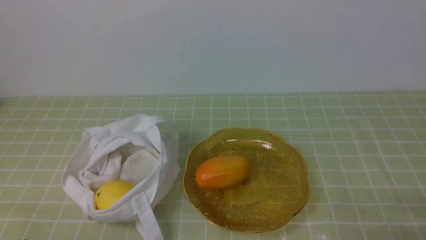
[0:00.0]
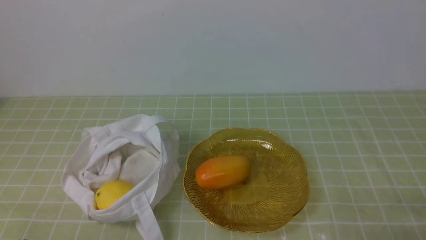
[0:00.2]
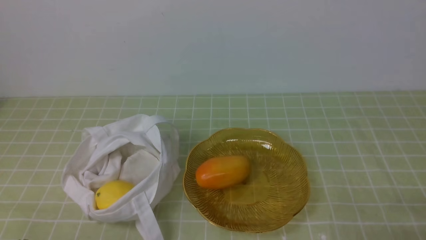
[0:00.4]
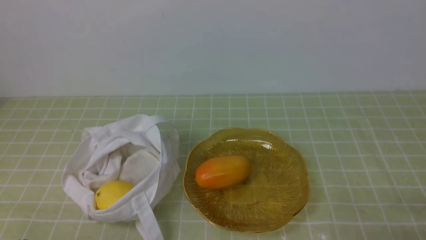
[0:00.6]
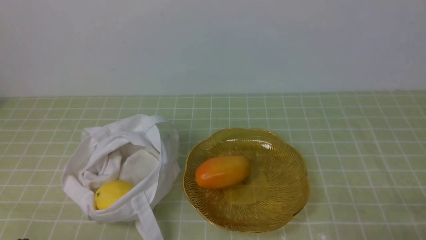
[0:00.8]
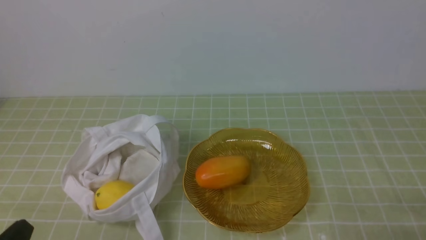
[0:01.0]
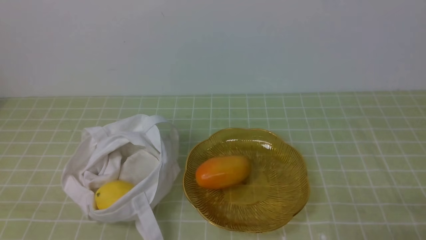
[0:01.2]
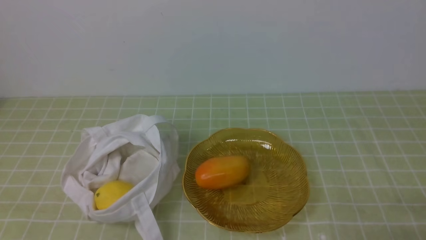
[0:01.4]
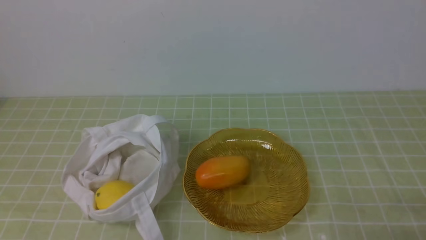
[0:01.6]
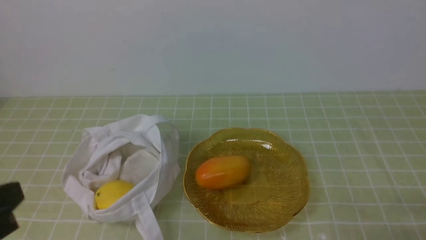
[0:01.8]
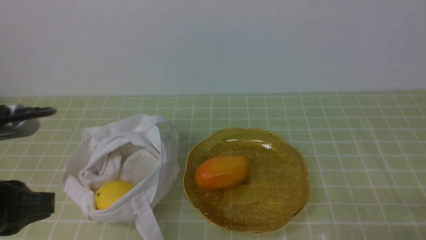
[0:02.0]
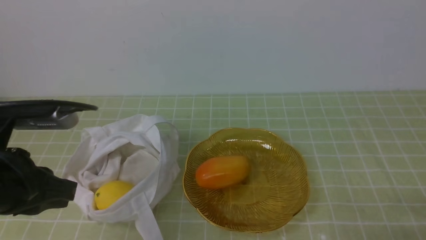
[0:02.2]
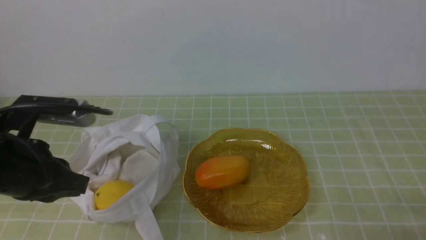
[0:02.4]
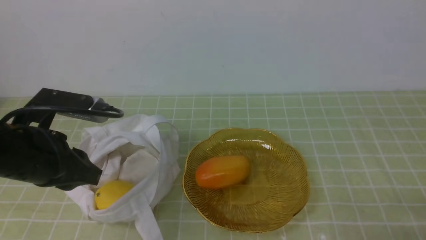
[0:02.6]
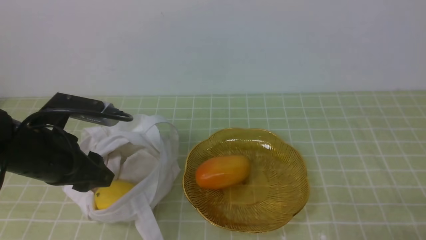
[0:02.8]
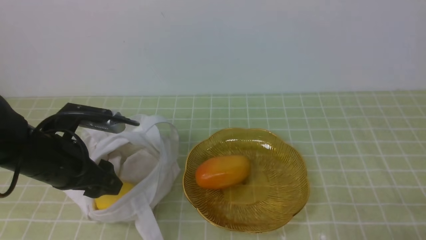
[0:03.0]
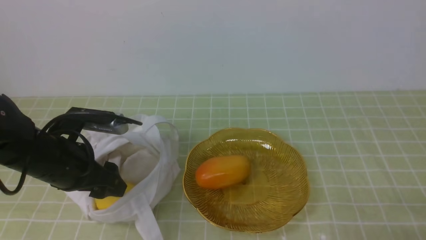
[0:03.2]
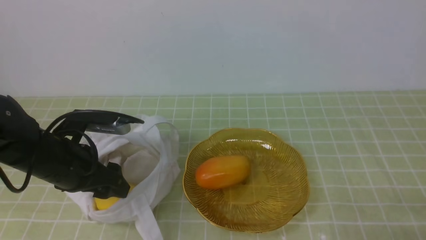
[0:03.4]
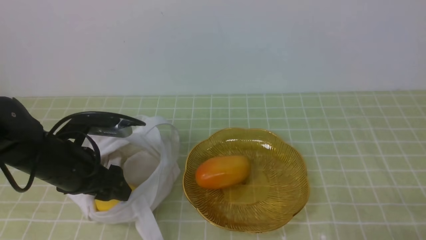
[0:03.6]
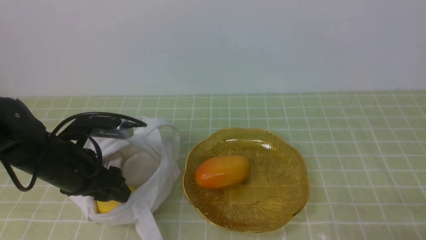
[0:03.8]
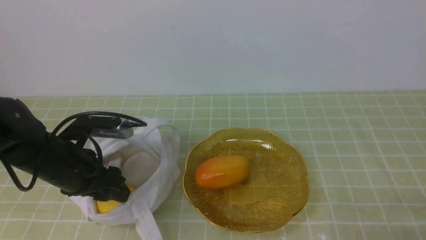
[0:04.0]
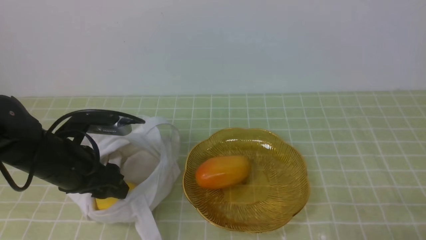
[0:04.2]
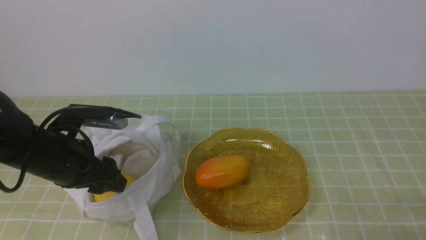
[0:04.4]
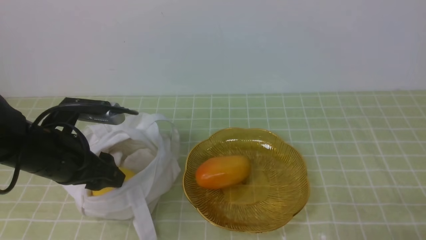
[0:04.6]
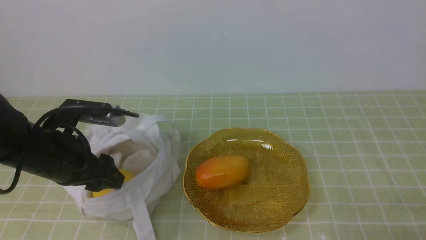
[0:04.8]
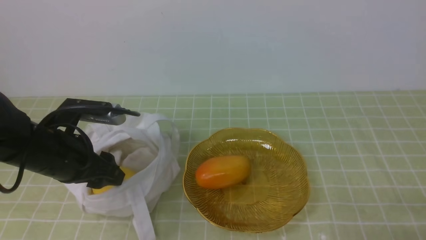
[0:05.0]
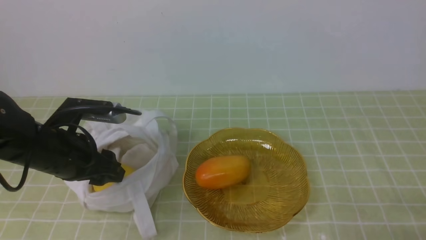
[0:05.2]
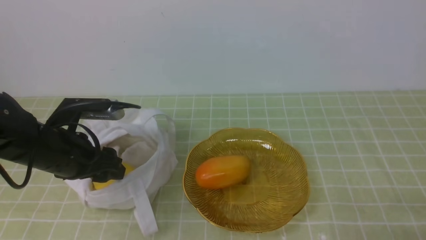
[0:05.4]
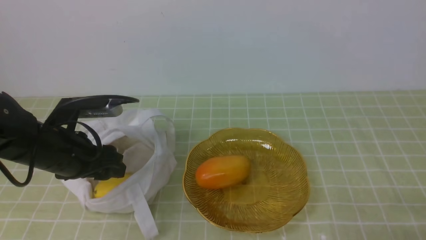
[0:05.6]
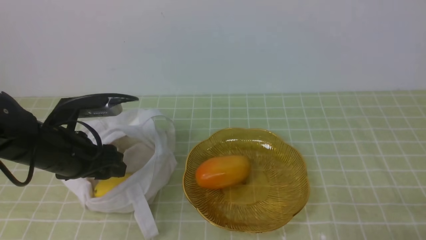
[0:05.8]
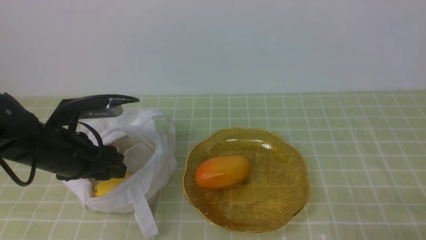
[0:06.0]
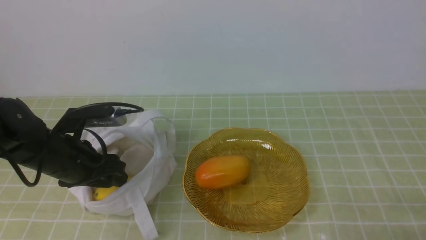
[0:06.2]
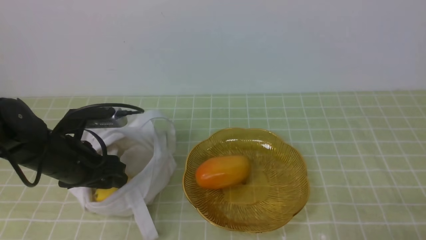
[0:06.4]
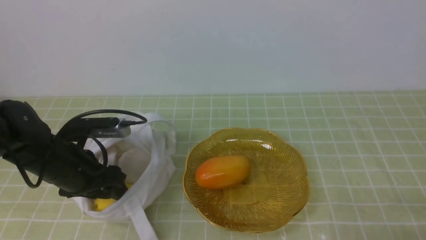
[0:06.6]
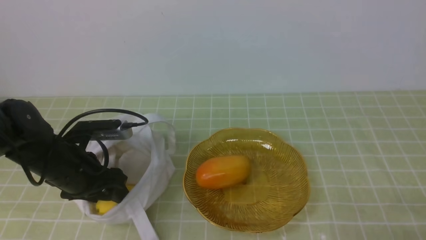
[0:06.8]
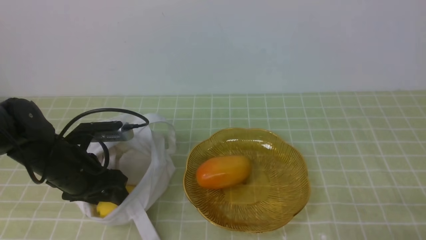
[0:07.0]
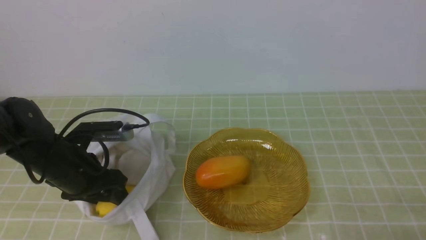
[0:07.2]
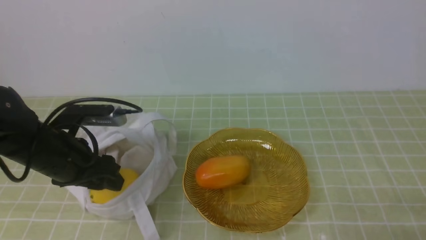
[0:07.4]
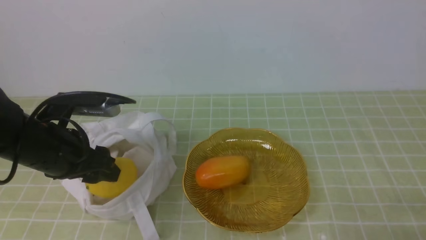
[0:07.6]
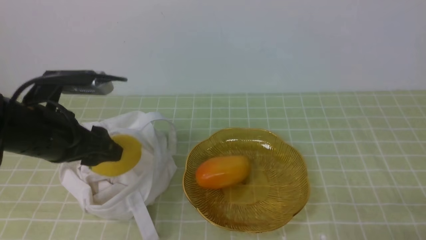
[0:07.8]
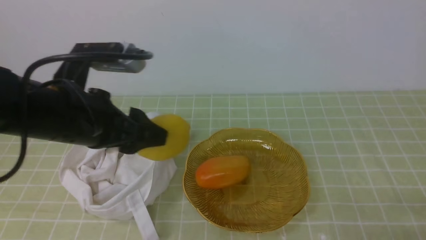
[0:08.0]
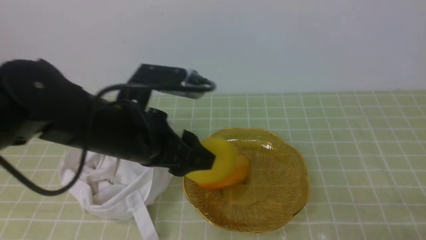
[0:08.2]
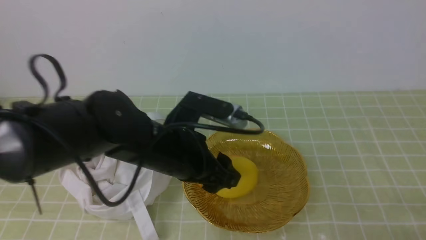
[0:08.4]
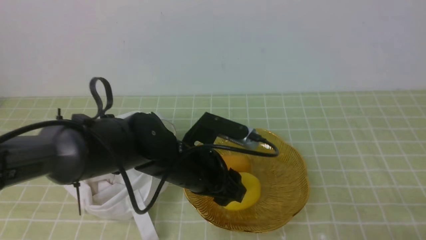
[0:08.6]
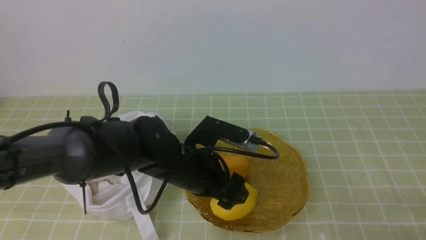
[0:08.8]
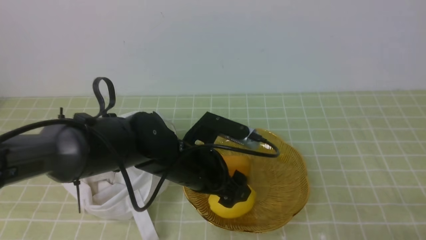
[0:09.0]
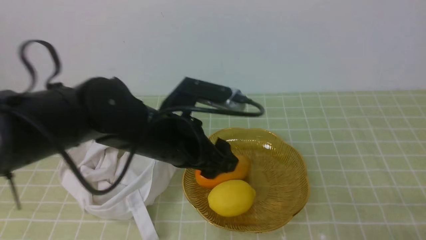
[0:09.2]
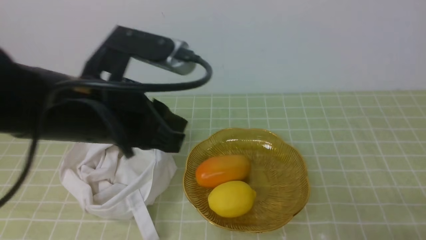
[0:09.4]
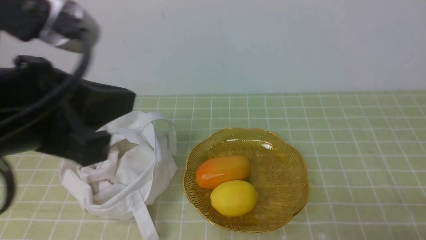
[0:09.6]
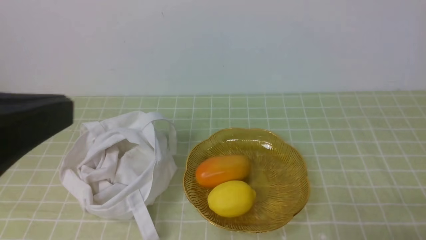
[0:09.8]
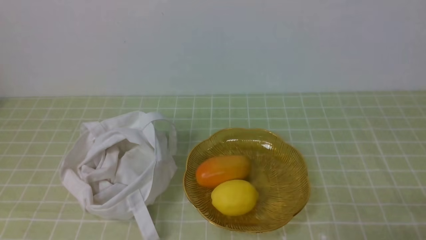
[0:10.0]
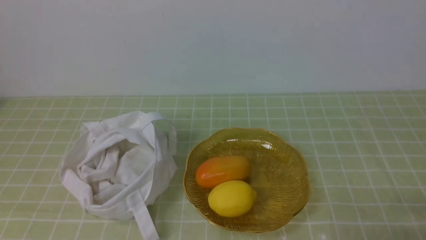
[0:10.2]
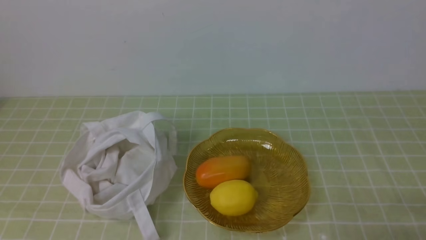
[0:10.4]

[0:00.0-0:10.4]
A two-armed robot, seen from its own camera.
Step, 0:00.0 to 0:07.6: use the left arm to grab a lemon from the bag.
Step, 0:07.8 to 0:09.0: use the left arm to put the lemon into the empty plate on the right.
0:01.4 to 0:03.0: The left gripper shifts about 20 cm forward, and opens.
0:03.0 to 0:06.0: The grippers stay close to where they were, moving slightly.
0:06.0 to 0:07.4: The grippers stay close to where they were, moving slightly.
0:07.4 to 0:09.0: The left gripper travels to the right by about 20 cm.
0:09.0 to 0:10.4: The left gripper is displaced backward, upward and to the left by some 35 cm, and closes its fingers.

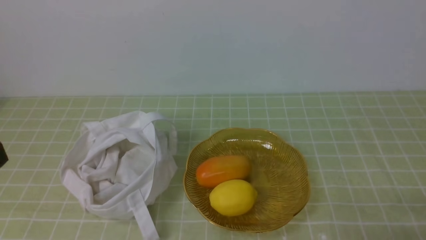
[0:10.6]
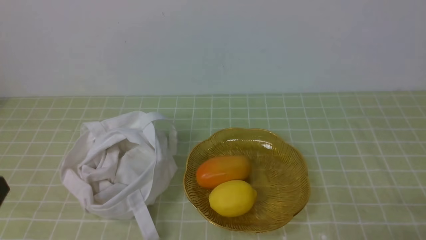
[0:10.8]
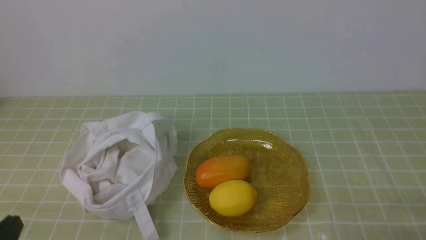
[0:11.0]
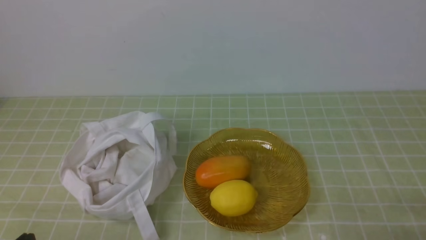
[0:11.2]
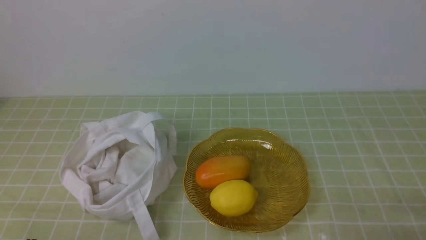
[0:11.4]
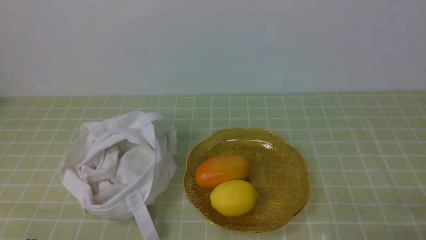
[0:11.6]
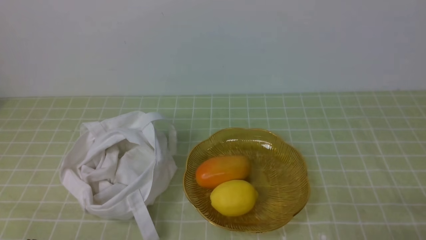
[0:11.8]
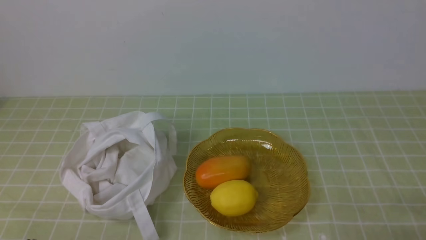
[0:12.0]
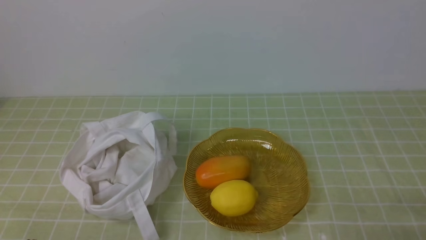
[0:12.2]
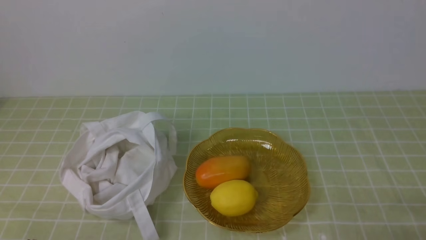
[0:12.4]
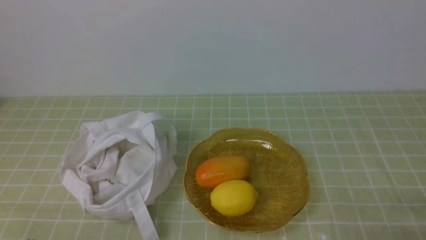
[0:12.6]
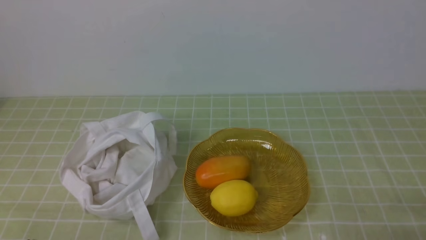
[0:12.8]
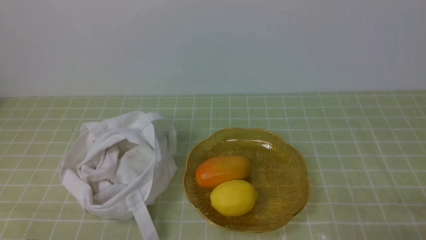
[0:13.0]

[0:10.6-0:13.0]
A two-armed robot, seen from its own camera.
0:11.8 to 0:13.0: Both grippers stay put.
